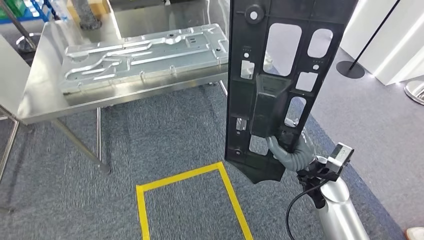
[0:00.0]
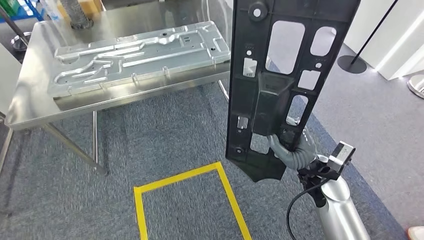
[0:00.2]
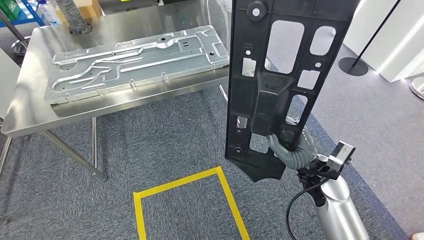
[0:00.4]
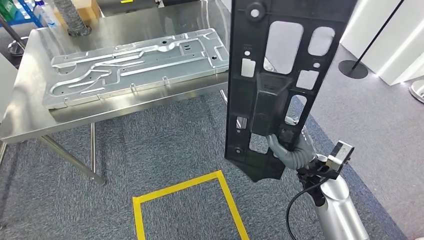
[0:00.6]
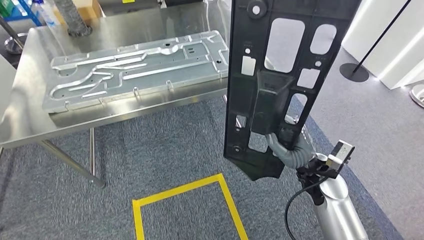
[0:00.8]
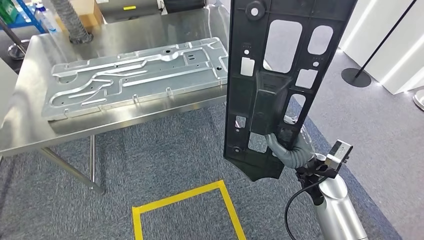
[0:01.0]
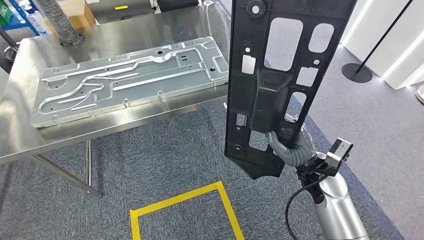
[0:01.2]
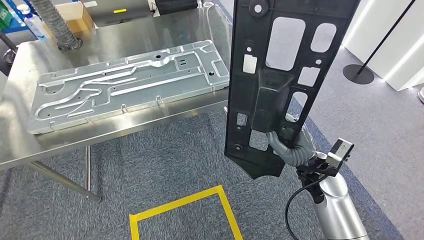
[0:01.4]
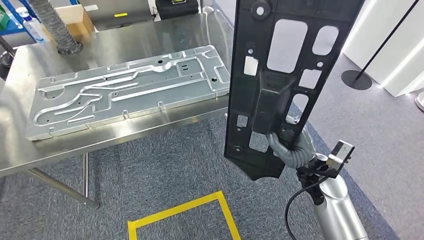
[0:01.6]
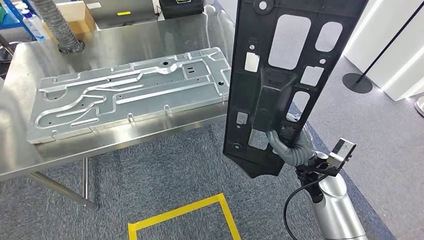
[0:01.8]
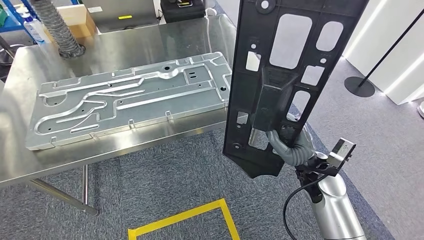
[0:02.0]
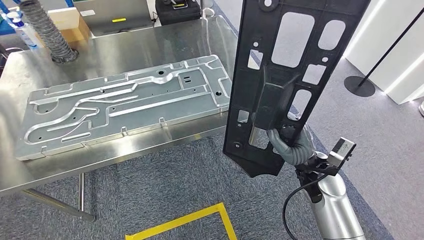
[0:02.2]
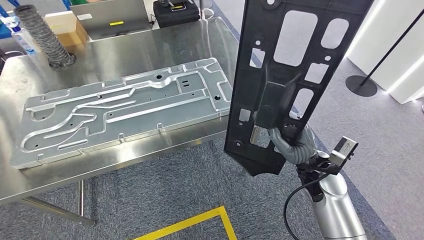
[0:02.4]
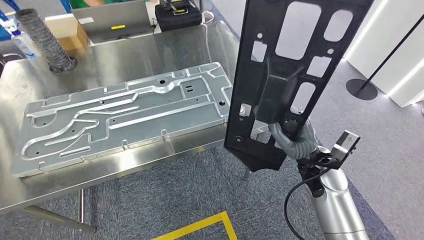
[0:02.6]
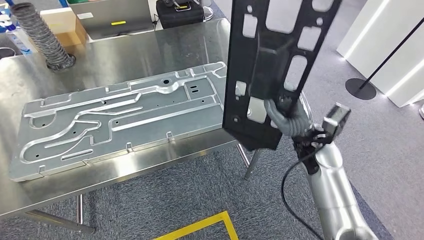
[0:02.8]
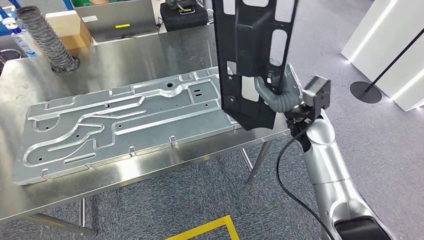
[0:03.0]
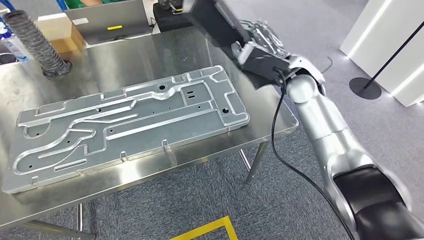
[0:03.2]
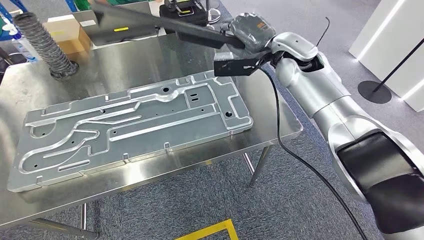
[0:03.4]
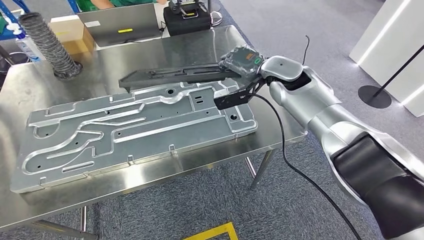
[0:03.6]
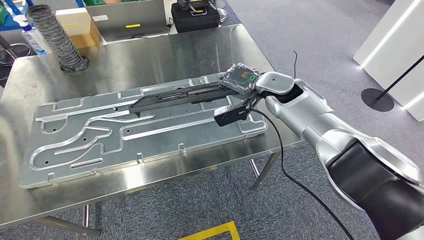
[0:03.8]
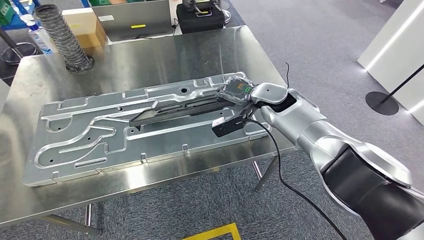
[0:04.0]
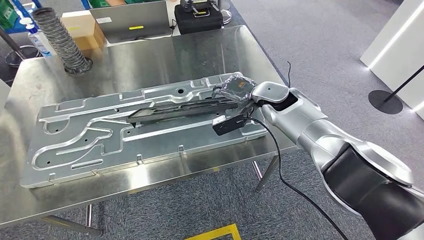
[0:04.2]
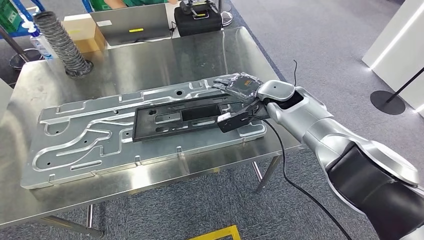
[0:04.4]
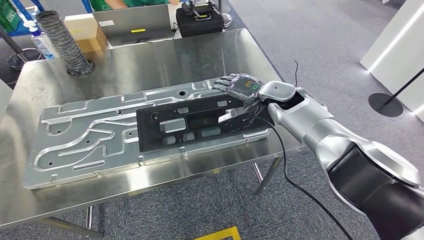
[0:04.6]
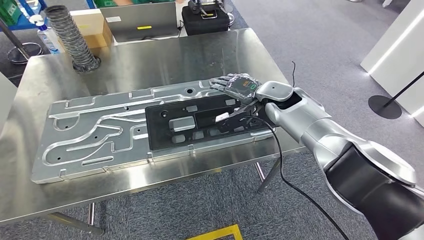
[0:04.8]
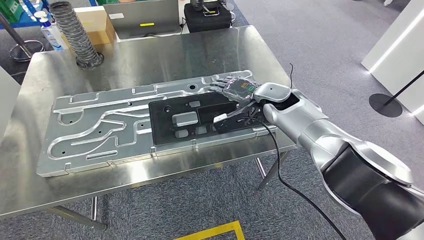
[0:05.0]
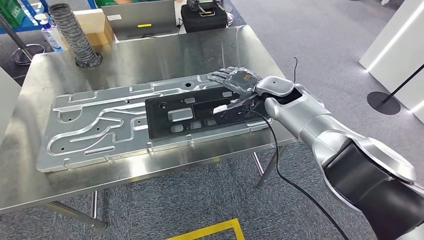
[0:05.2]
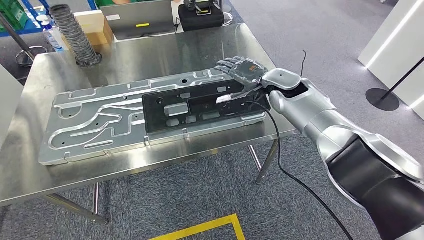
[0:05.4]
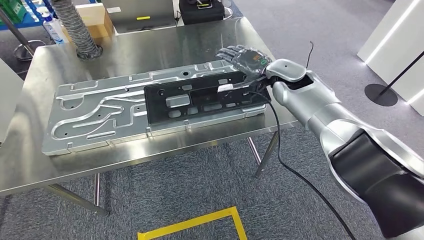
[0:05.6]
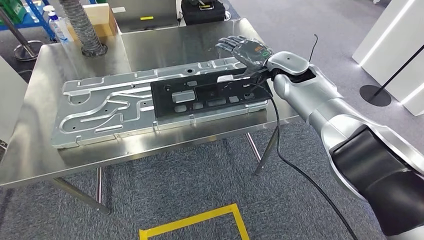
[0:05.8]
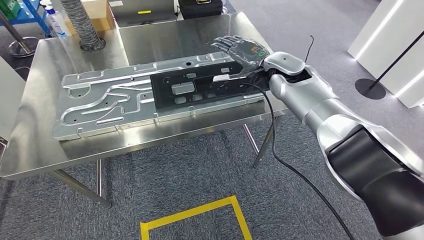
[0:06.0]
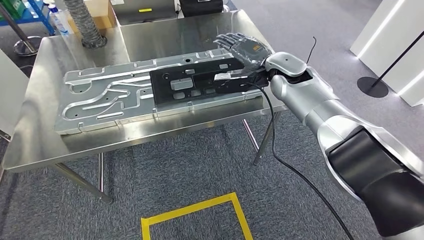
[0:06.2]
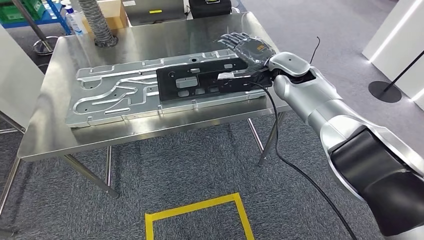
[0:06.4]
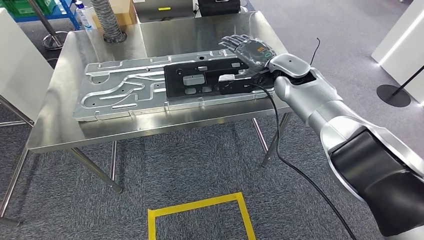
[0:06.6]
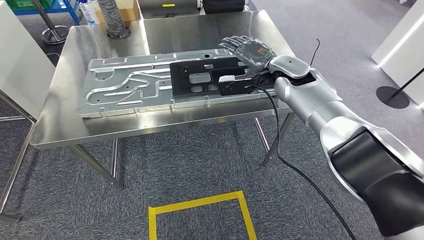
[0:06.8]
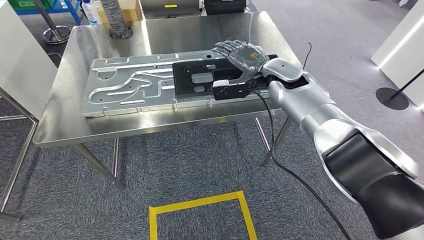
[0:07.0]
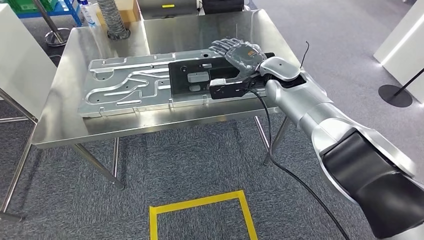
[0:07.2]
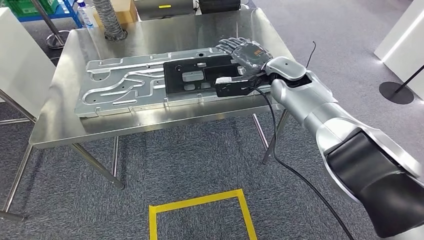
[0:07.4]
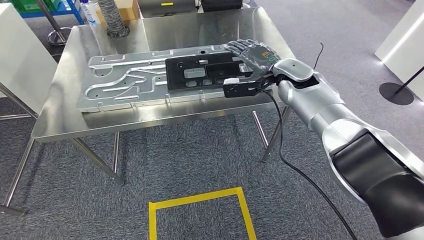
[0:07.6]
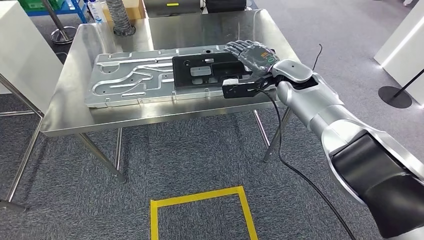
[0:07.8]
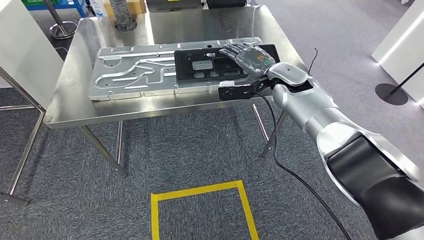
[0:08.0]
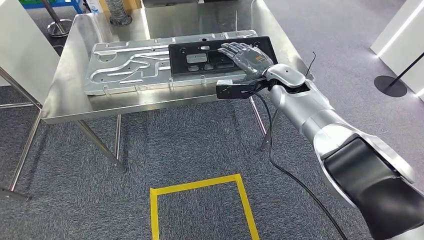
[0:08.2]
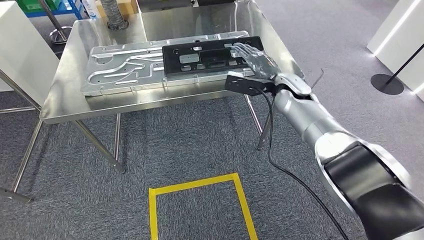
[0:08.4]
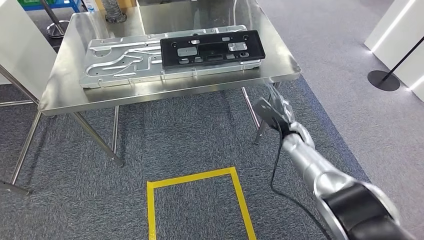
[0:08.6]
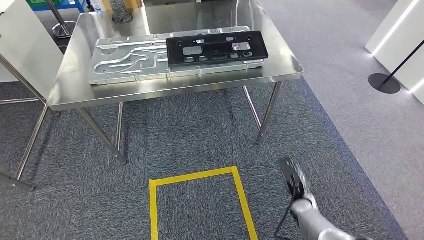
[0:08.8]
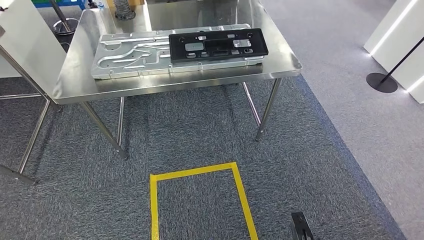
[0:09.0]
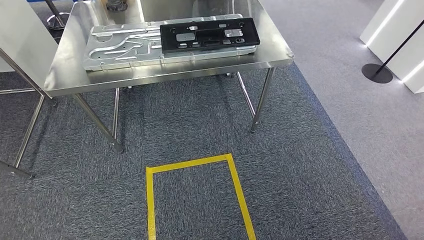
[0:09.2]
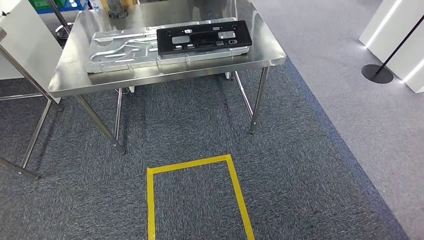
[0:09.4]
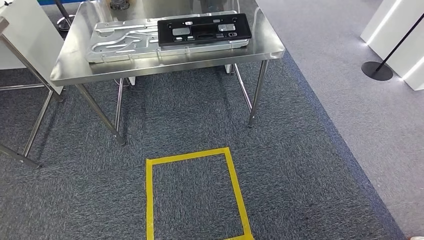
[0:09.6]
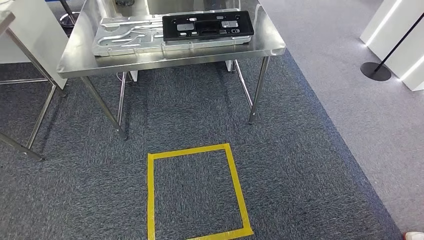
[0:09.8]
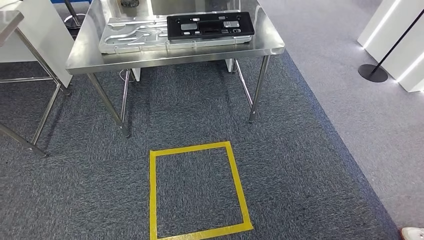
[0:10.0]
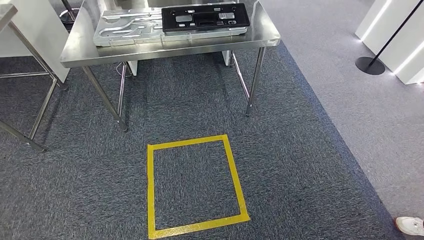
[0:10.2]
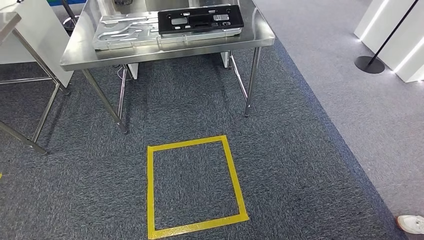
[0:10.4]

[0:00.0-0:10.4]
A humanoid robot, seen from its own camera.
Step, 0:02.6 to 0:04.4: Insert the large material into the corresponding slot on the workbench.
Step, 0:06.4 to 0:10.4: Move to the initial position of the shelf.
